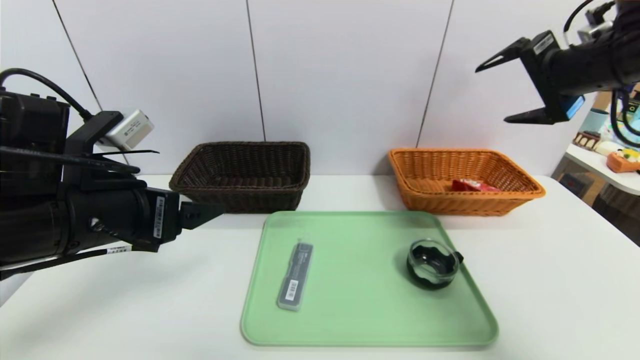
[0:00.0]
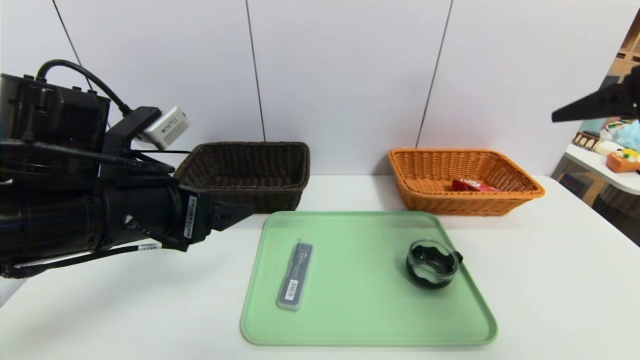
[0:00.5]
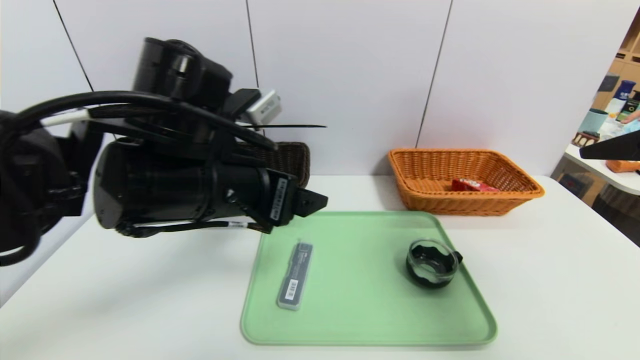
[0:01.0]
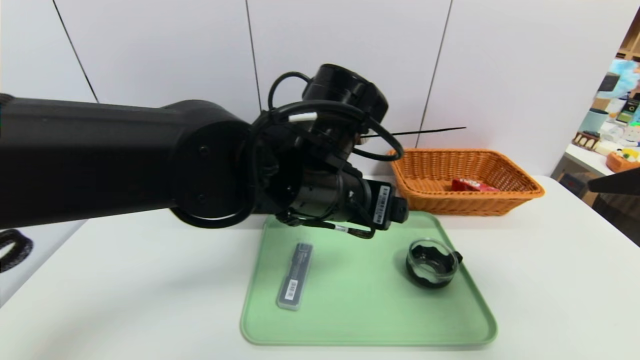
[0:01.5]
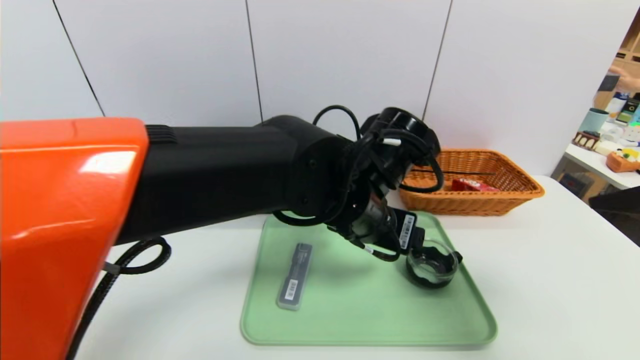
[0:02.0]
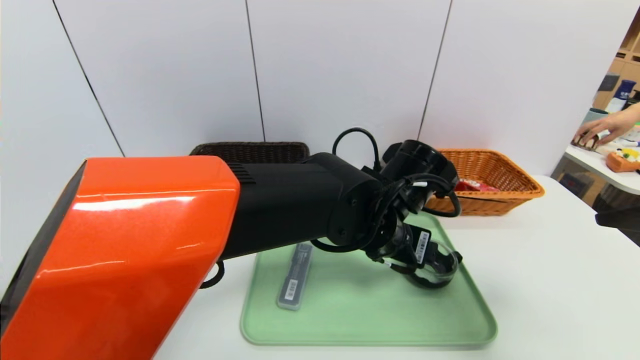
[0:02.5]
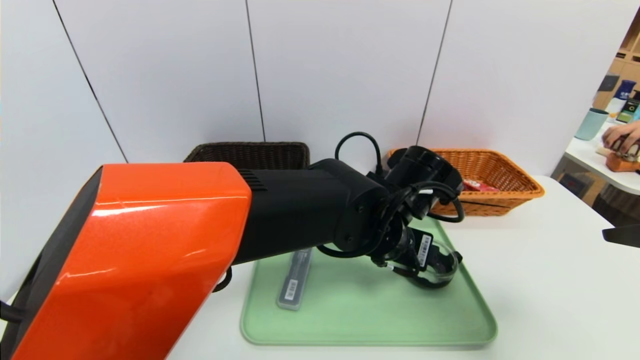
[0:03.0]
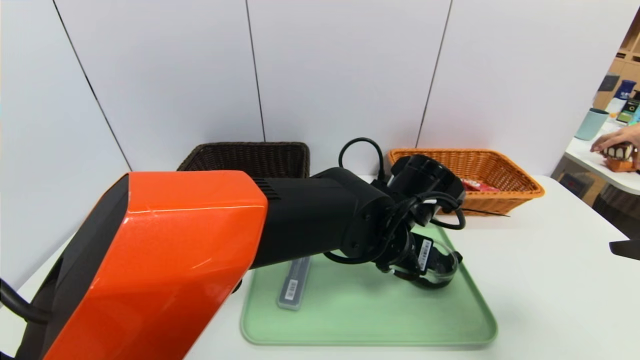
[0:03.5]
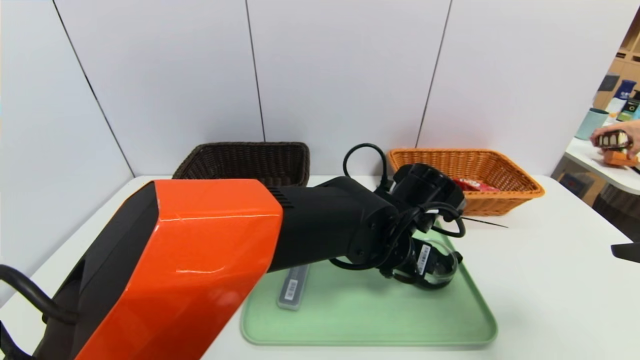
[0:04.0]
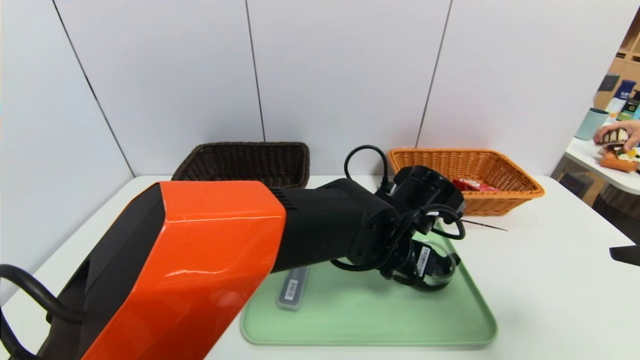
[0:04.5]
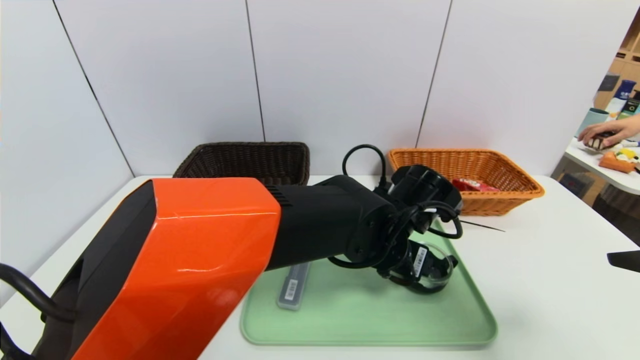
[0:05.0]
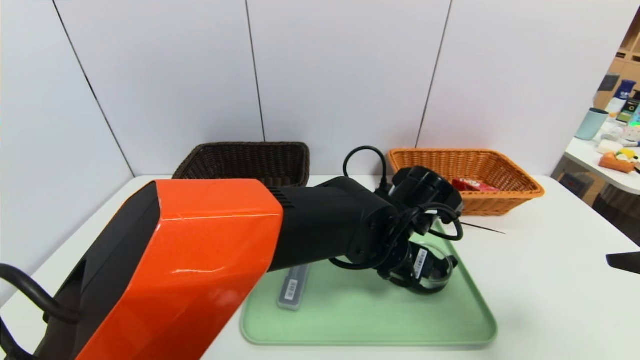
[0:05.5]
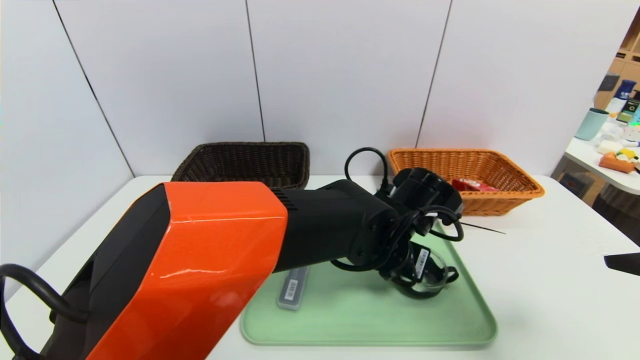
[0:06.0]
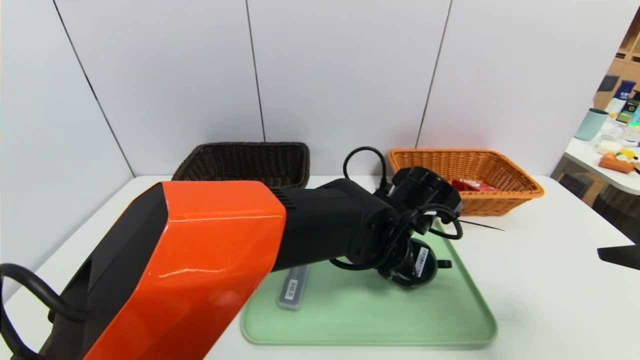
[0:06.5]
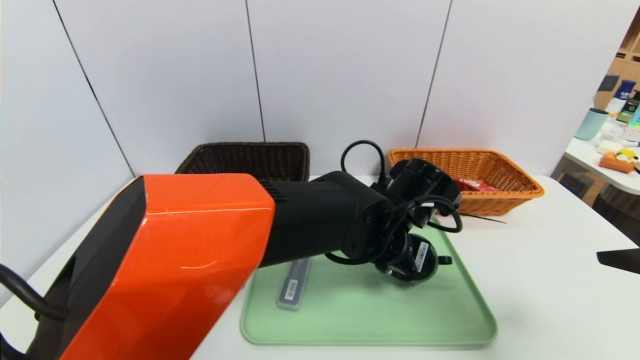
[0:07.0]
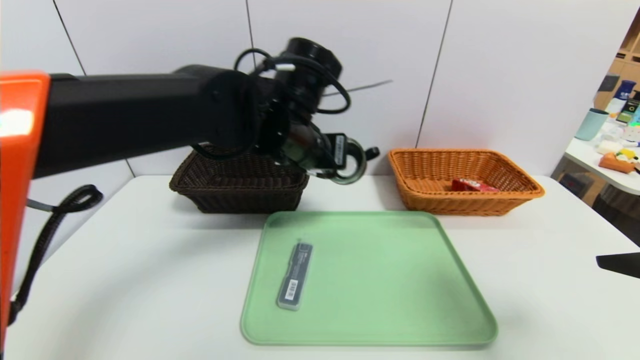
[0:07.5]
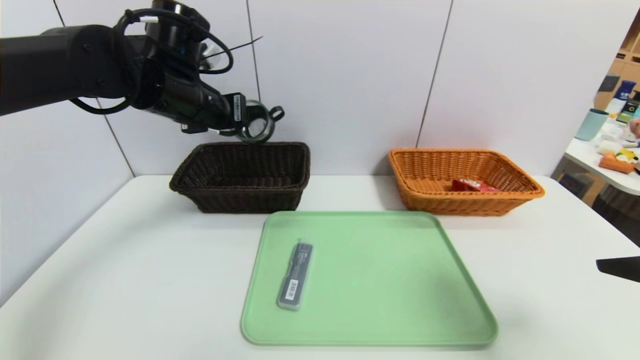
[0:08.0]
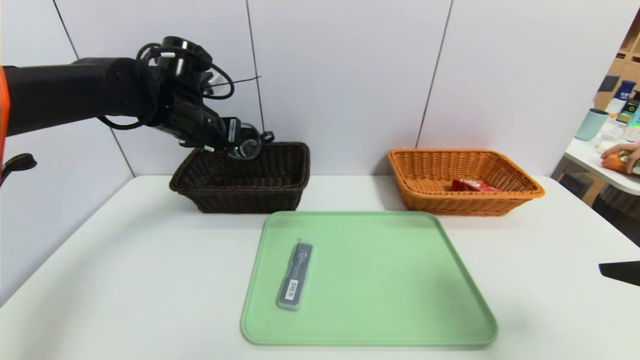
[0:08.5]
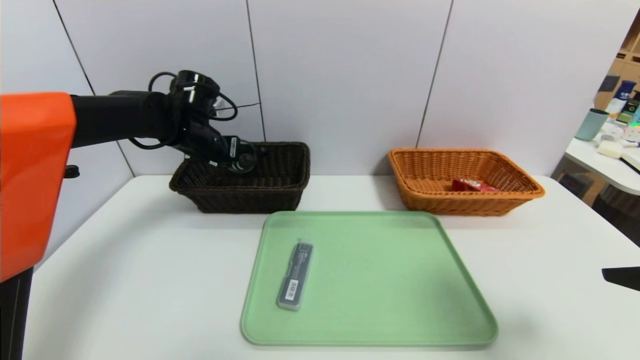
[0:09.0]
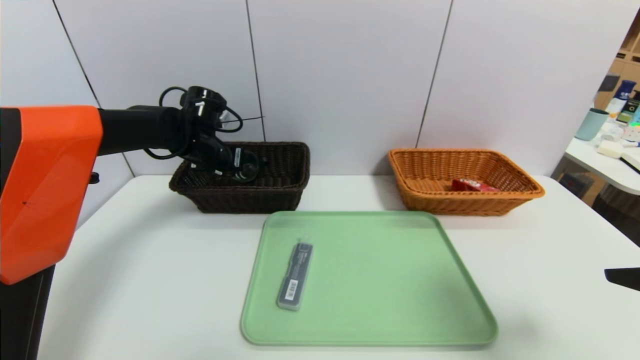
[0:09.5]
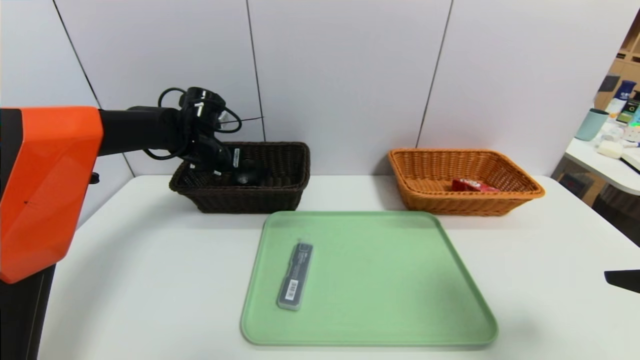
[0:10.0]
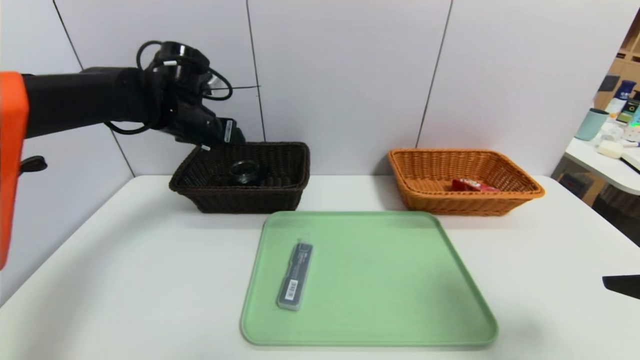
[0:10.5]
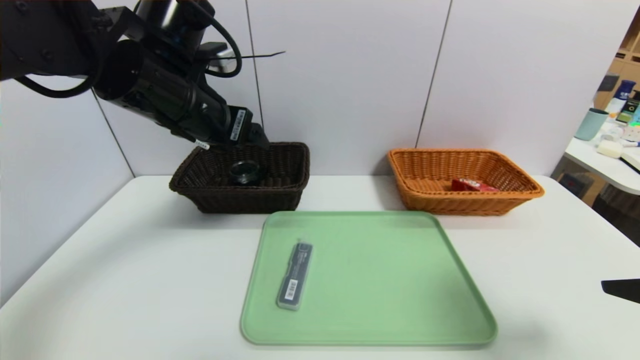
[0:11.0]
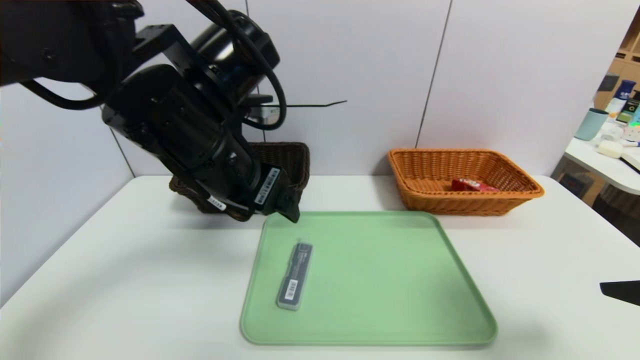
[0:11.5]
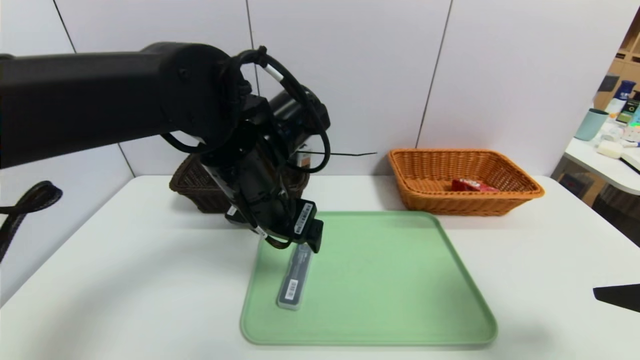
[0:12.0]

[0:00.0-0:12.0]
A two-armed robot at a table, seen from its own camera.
Task of the whole recording: place the food in the right basket with the right gripper, and place the non food items in the left basket with the left gripper.
Step, 0:00.0 to 0:10.0: Grasp the tea cup and put it in the left basket.
0:00.0 to 0:02.0: The left gripper is displaced to the right by approximately 25 cm. The right gripper moves backward, approximately 15 cm.
0:02.0 to 0:04.0: The left gripper travels downward by some 5 cm.
0:04.0 to 0:06.0: The left gripper closes up.
0:06.0 to 0:08.0: The left gripper travels to the left and upward by approximately 30 cm, and closes.
0:08.0 to 0:10.0: The left gripper goes roughly 15 cm downward and forward, and opens its fingers.
0:10.0 to 0:12.0: The left gripper moves backward and to the right, approximately 25 cm, and opens its fingers.

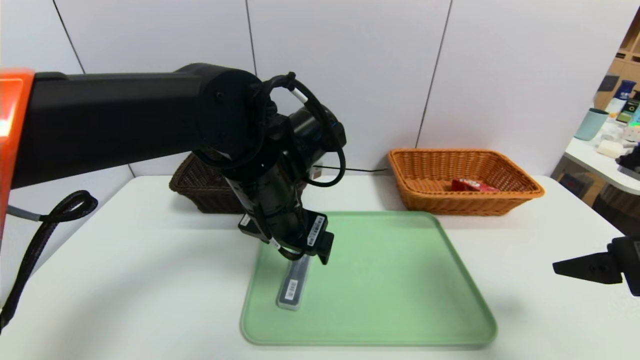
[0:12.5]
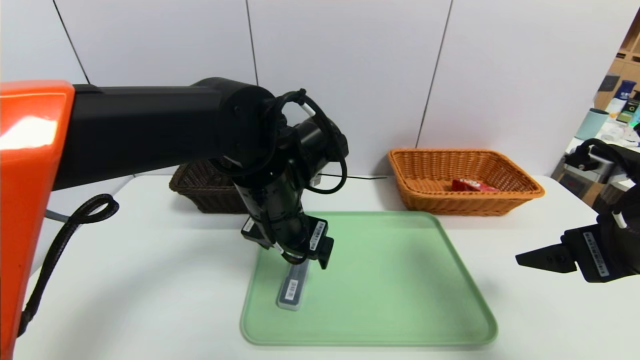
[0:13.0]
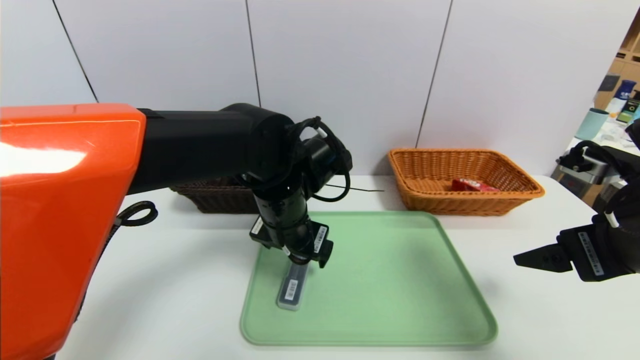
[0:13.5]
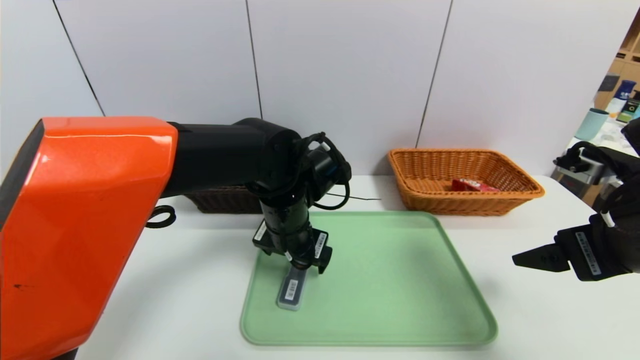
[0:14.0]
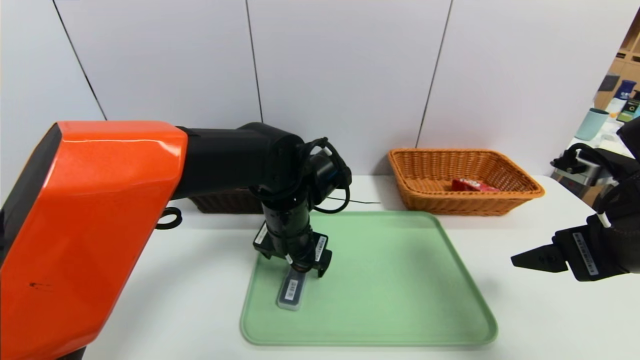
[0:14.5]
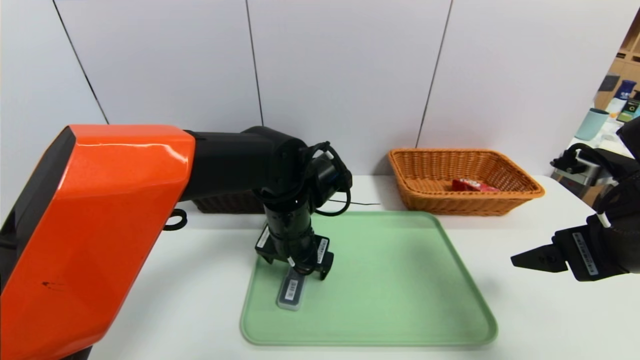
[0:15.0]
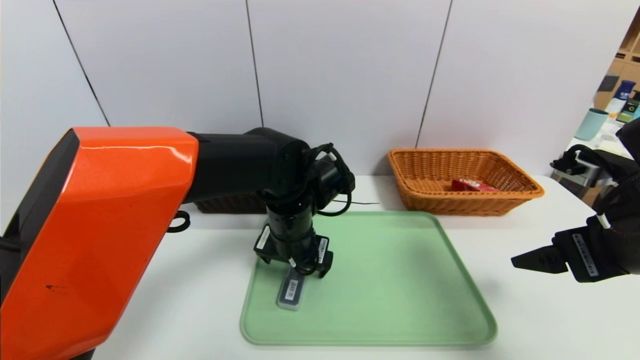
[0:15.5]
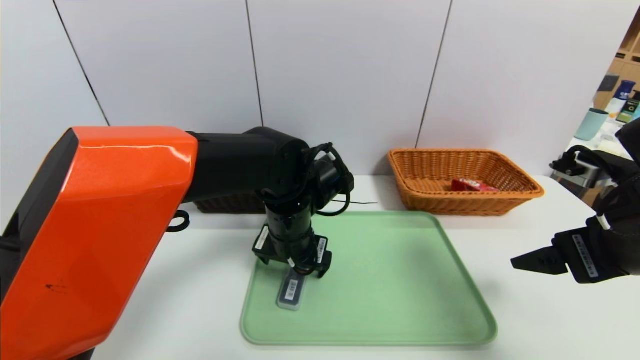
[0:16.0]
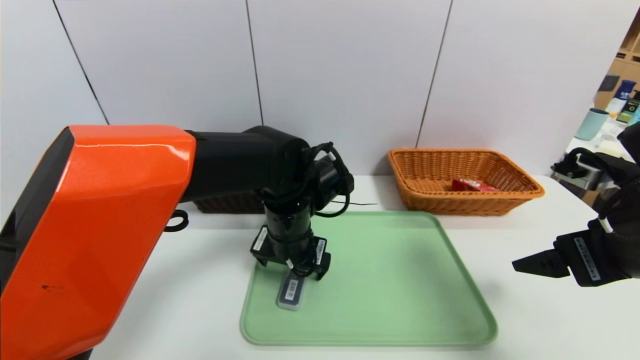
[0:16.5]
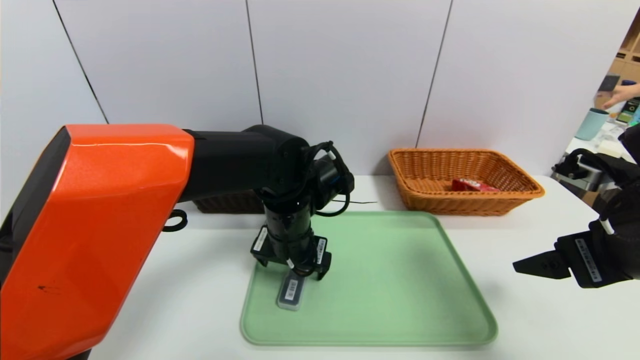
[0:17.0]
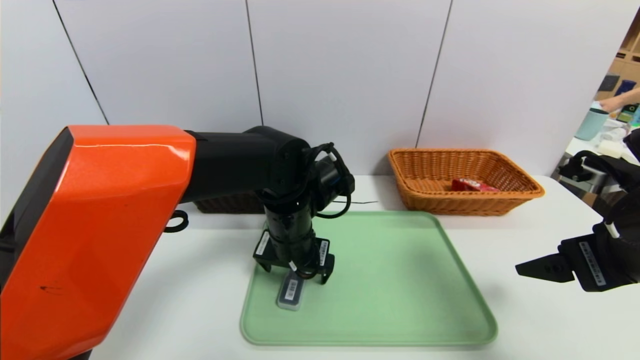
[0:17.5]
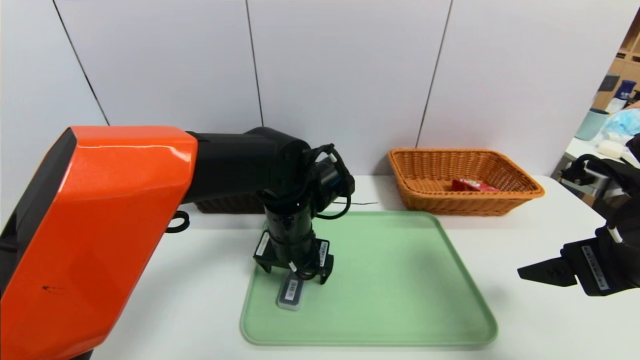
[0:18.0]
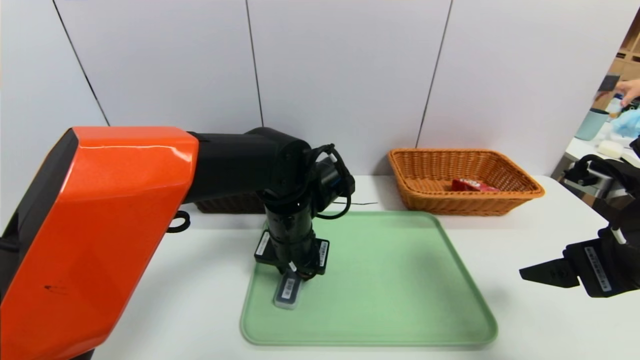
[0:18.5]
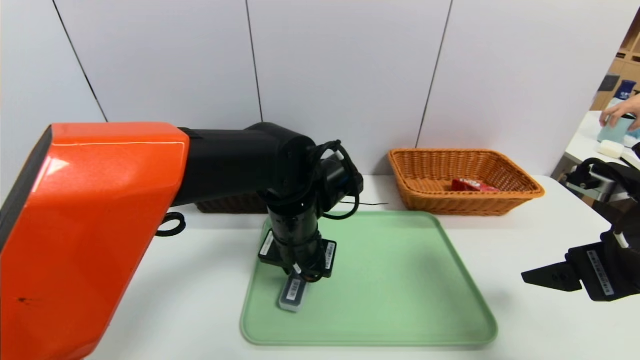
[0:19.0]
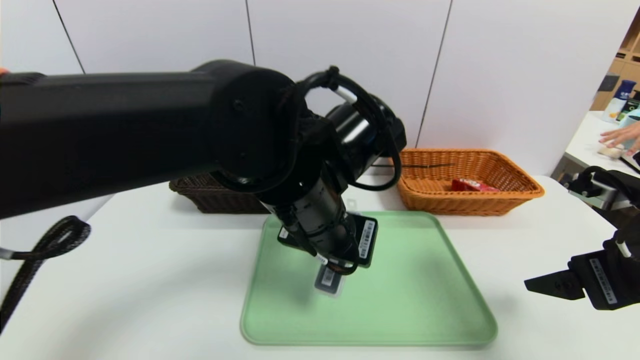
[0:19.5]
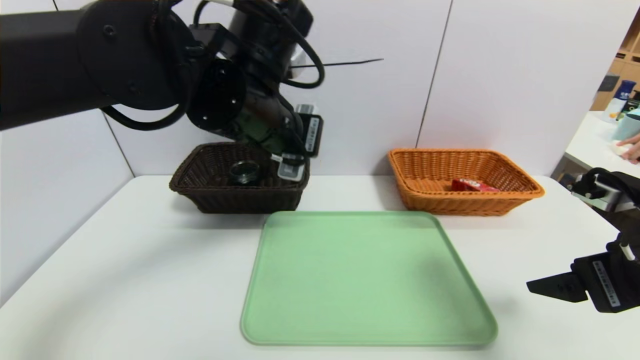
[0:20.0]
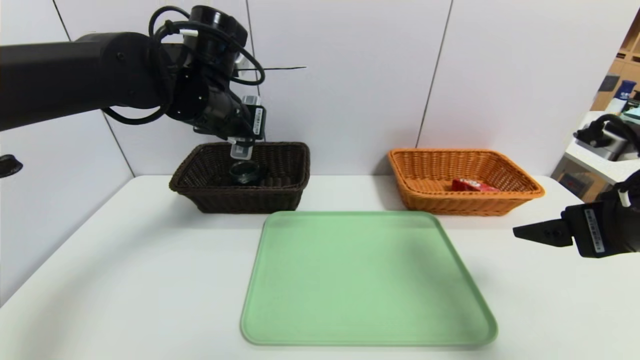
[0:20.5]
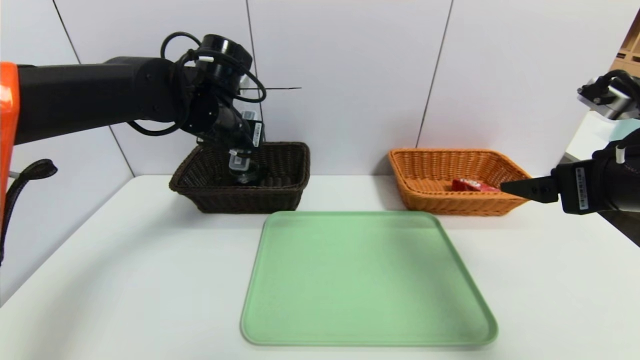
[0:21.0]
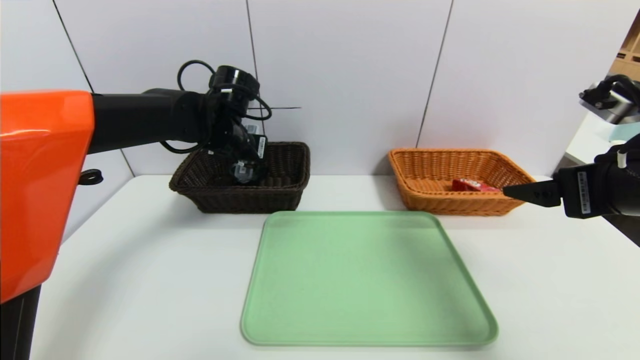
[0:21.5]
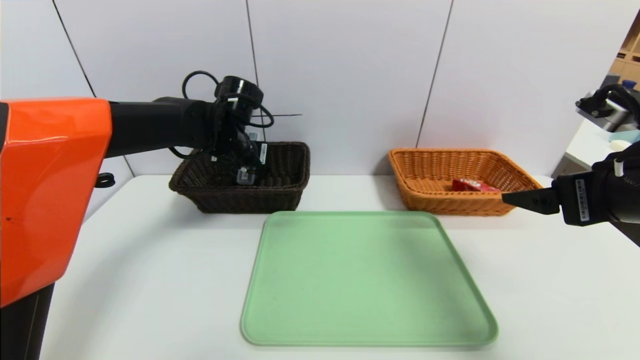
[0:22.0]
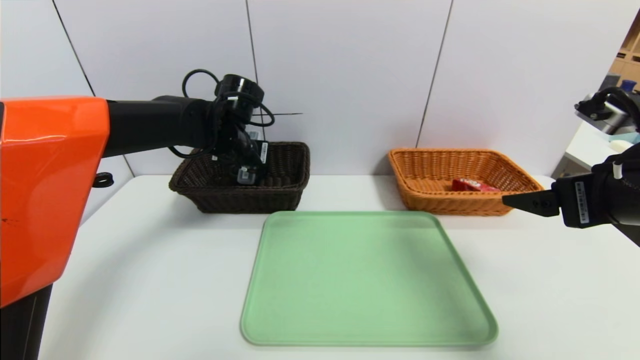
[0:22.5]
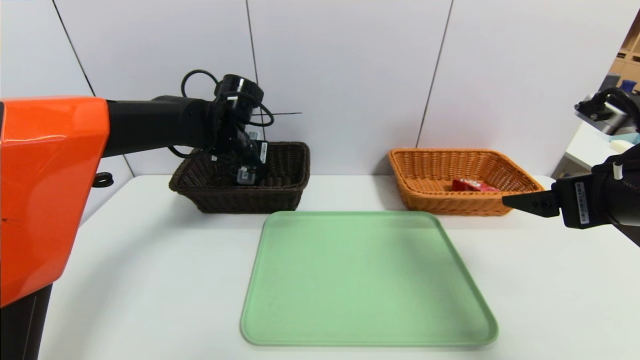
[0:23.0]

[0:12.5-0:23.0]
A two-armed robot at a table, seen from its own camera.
Task of the whole recording: place the food in the right basket with the right gripper, and place the non food items in the left basket with the left gripper.
0:12.5 to 0:14.5: The left gripper moves downward, some 5 cm.
0:14.5 to 0:16.5: There are only small adjustments of the grippers.
0:16.5 to 0:19.0: The left gripper closes up.
0:19.0 to 0:21.0: The right gripper ends up approximately 5 cm from where it was; the left gripper goes about 20 cm to the left, upward and forward.
0:21.0 to 0:23.0: The left gripper shifts some 5 cm downward.
